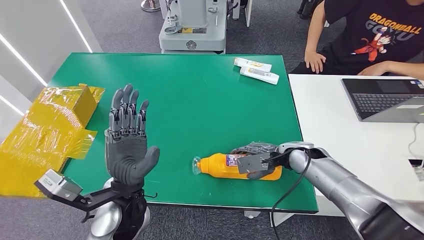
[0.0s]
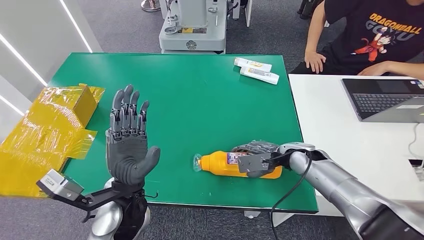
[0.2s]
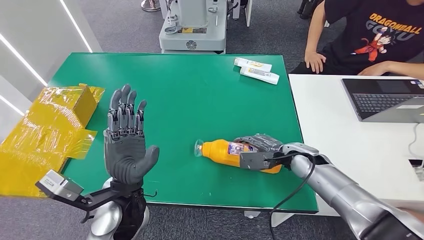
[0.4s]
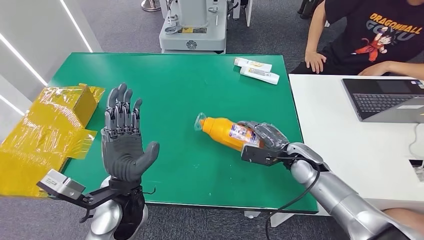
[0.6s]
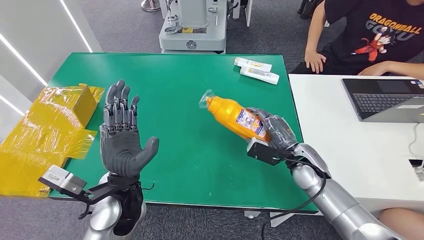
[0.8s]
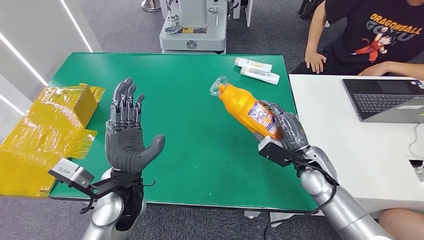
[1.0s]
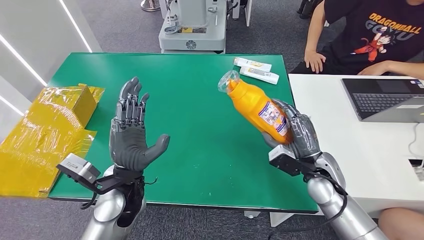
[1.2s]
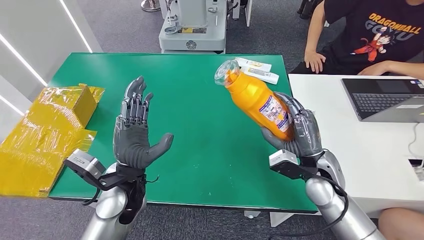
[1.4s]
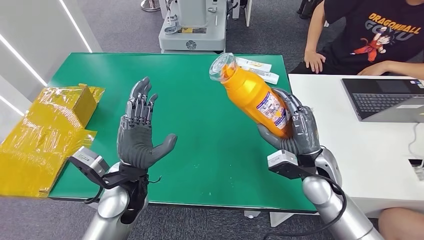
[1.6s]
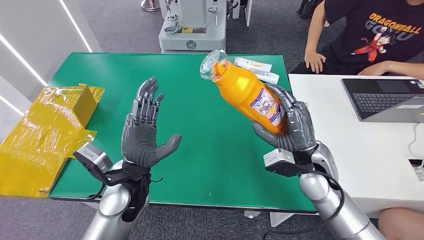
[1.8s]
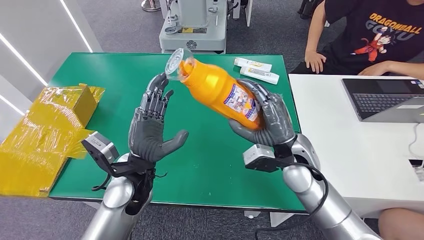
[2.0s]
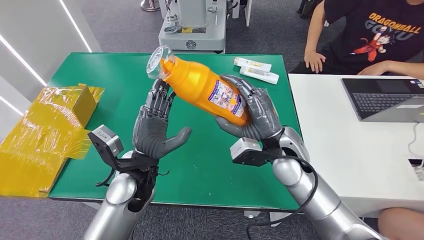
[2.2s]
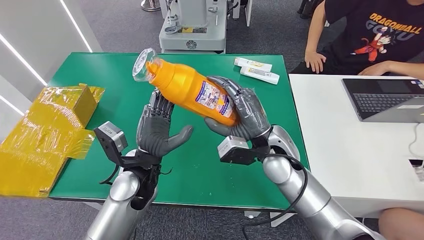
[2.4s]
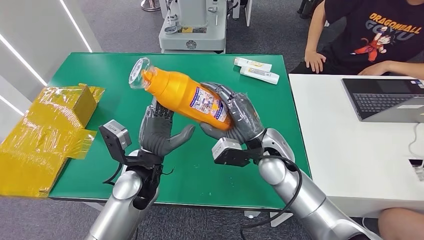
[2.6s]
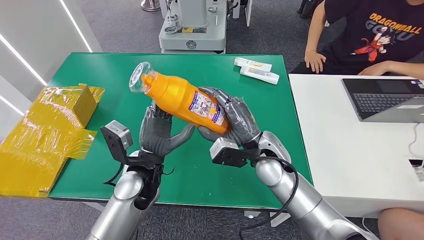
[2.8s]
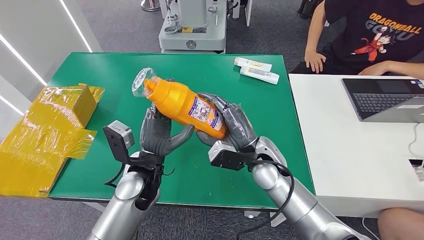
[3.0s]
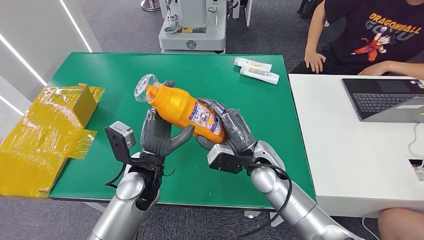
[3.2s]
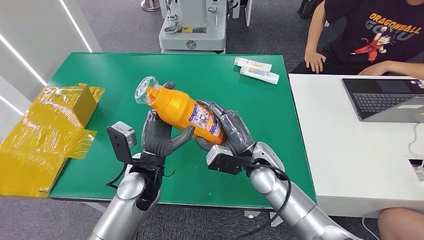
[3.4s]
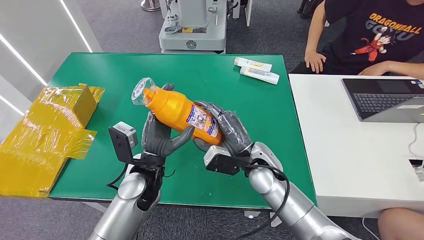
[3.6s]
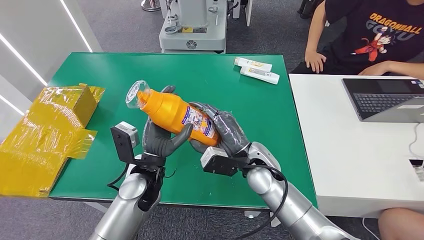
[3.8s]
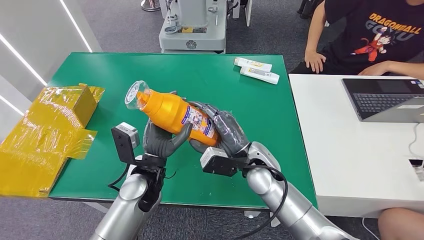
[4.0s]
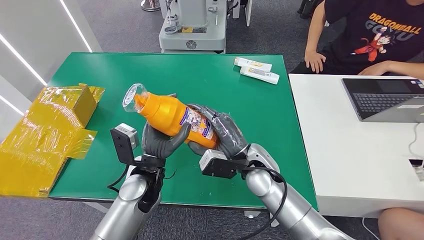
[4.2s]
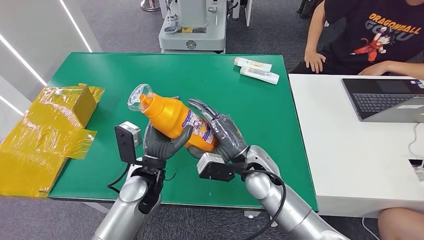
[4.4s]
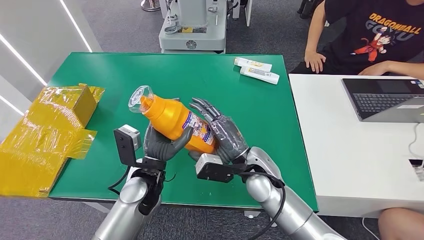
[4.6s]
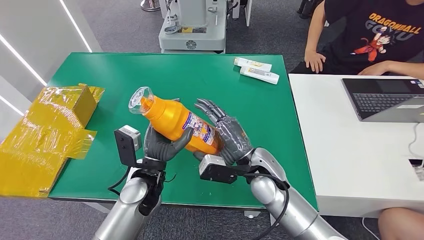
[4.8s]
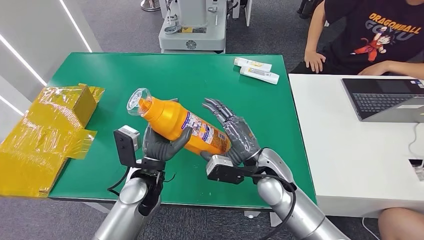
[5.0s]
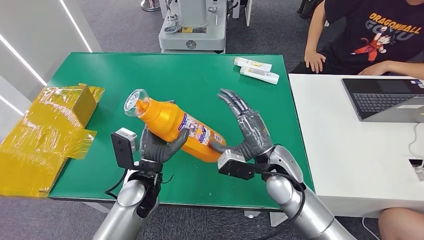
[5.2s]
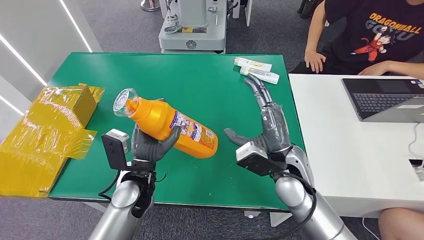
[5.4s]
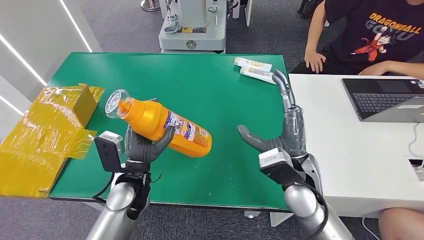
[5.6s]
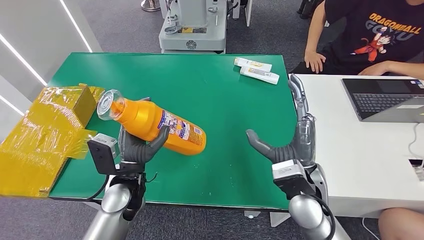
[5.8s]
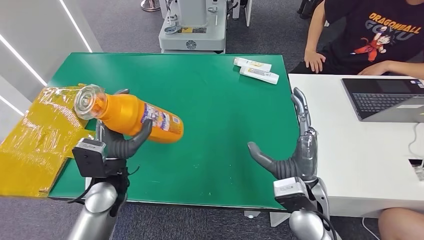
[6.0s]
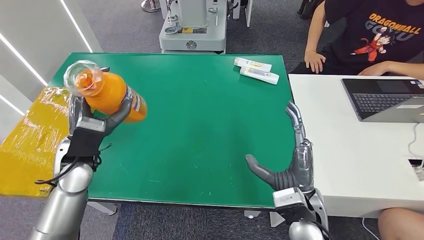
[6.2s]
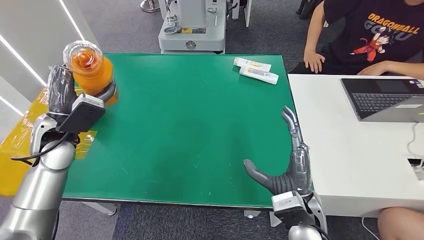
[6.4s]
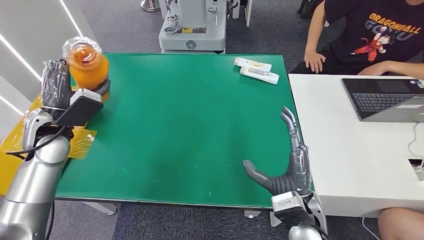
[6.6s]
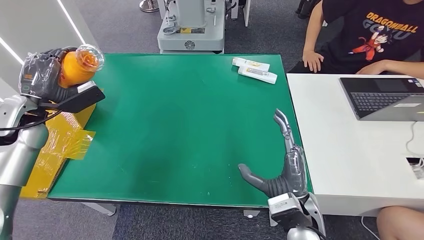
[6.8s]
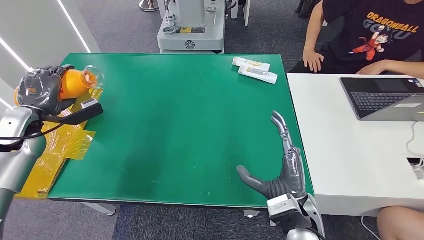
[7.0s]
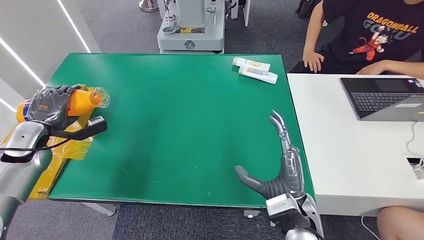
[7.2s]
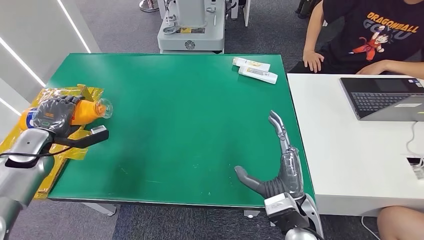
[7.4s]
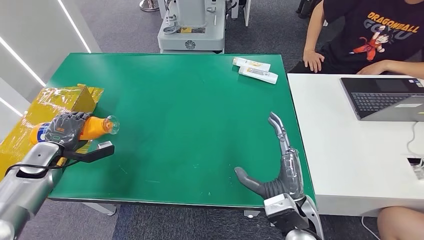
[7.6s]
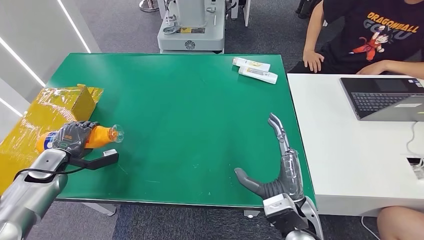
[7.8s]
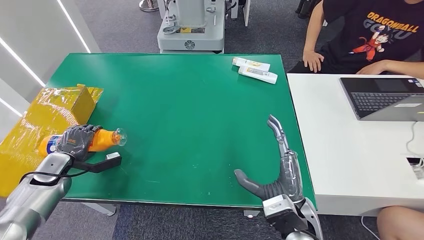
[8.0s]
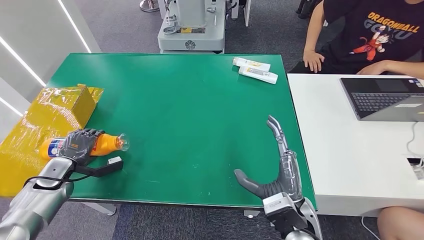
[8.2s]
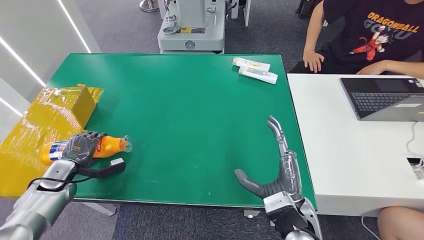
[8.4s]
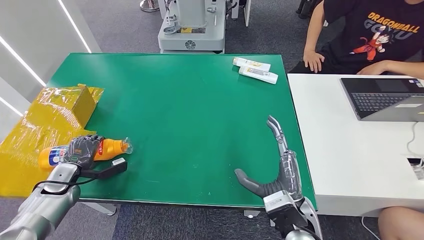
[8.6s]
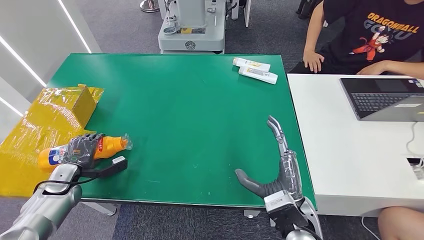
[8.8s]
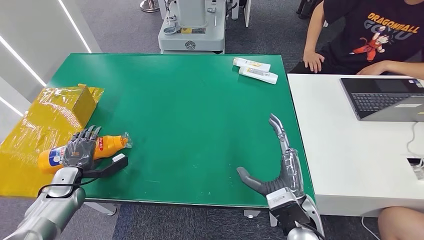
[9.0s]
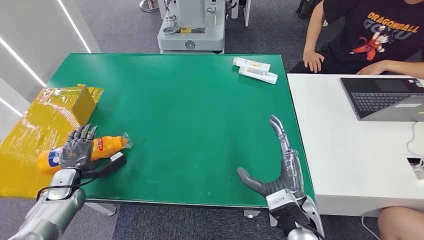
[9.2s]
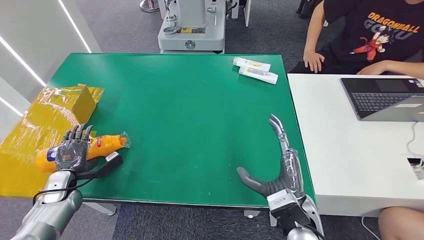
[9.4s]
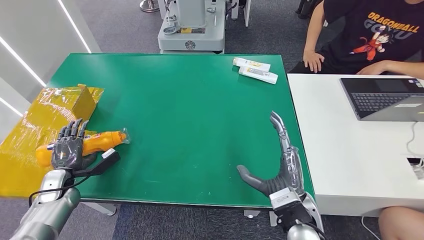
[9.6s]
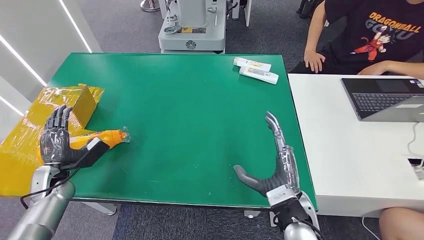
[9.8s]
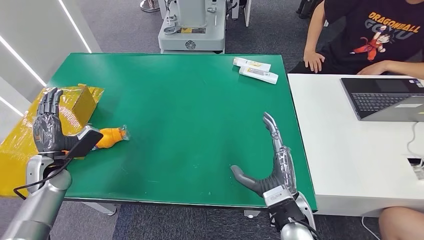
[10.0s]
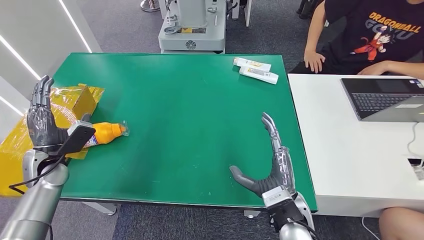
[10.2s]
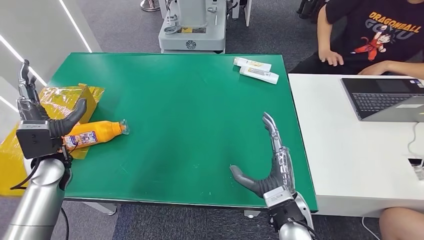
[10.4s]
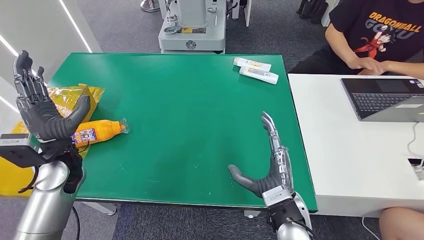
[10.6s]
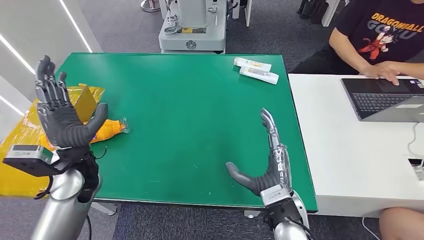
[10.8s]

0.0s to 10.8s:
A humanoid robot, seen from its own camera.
Step, 1.4s to 10.6s: Turn the bottle to the front side.
0.0s to 1.6s: The right hand shifts roughly 10 cm backward.
3.0s to 4.6s: The hands make only small movements.
7.8s to 9.2s: The left hand goes some 5 cm downward.
